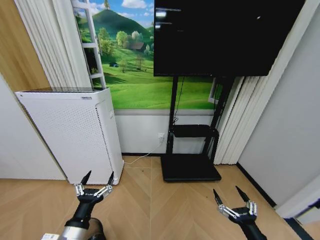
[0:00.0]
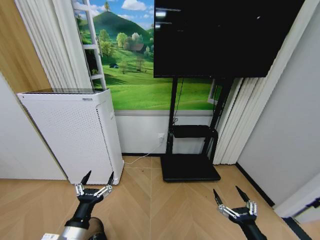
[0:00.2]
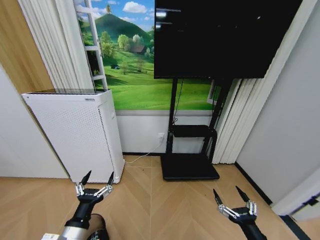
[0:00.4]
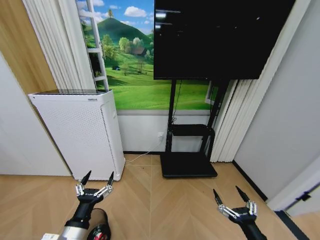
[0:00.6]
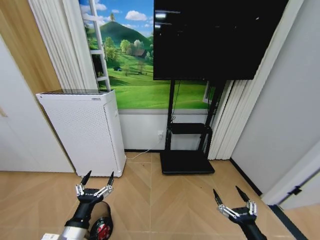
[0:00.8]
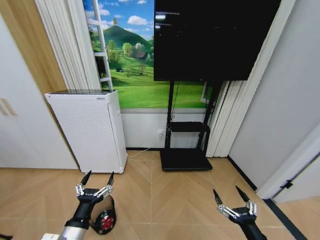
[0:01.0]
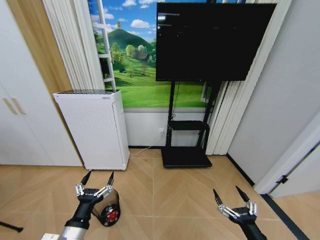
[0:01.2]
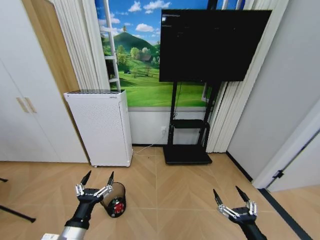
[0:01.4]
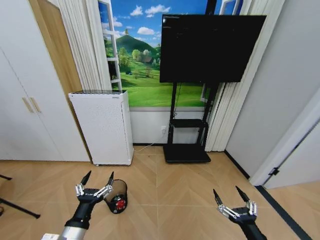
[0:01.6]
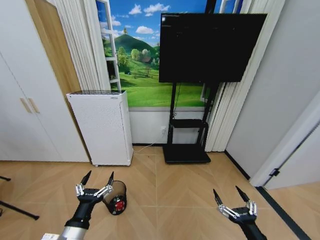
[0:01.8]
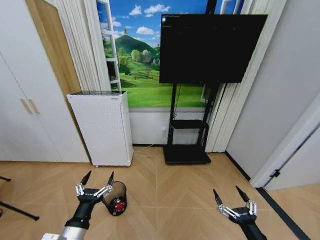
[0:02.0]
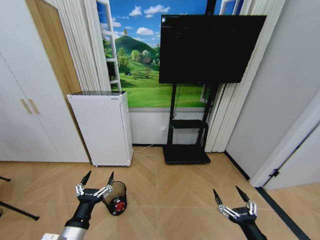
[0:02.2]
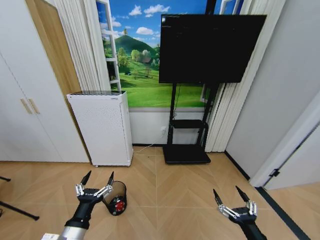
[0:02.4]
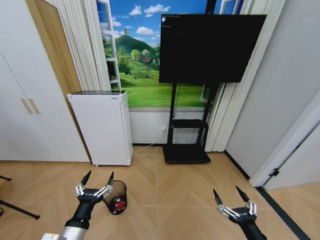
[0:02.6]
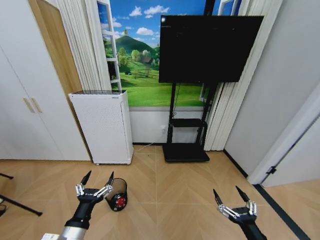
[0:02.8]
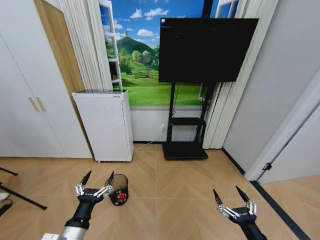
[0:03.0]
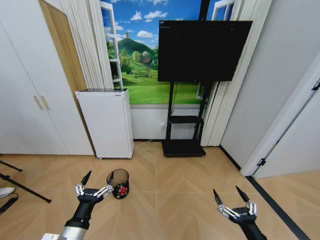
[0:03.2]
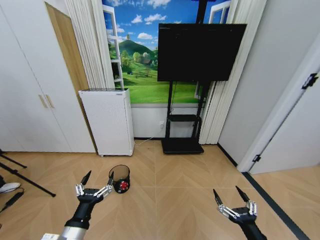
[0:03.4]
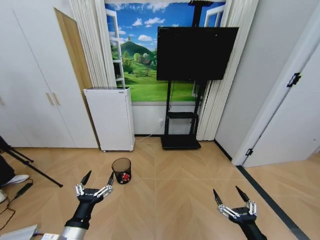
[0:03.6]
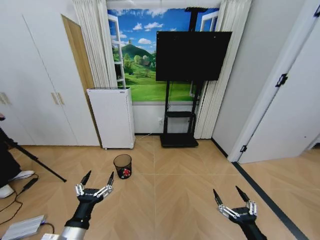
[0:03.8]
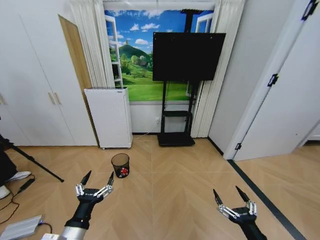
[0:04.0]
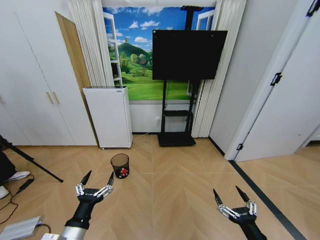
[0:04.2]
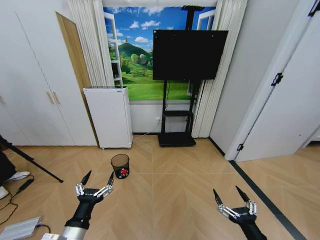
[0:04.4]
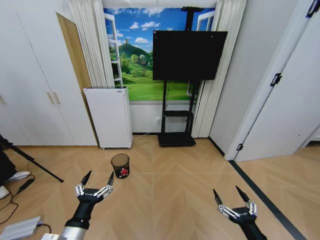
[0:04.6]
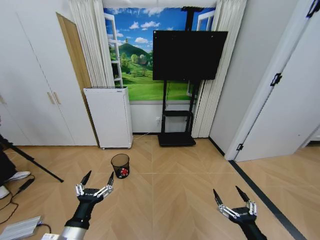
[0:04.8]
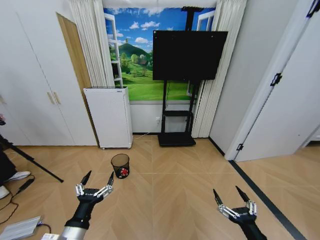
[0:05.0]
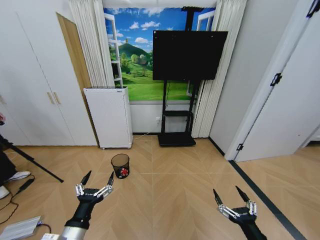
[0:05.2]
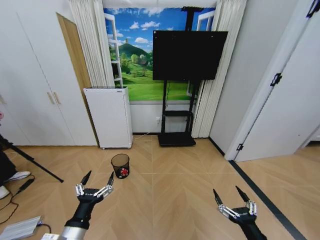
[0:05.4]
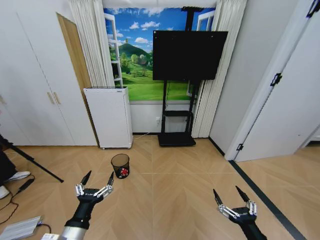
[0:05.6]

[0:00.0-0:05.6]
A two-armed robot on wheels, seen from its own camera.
Task of the whole recording: Pick up the trash bin and place the garbage on the floor into it.
0:01.4 to 0:02.8: Both grippers stay about where they are.
0:04.2 to 0:05.6: Both grippers stay about where they are.
